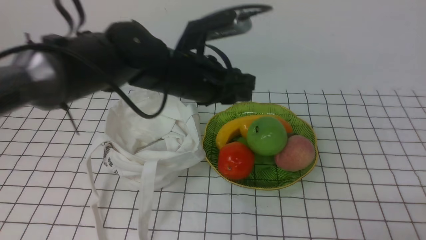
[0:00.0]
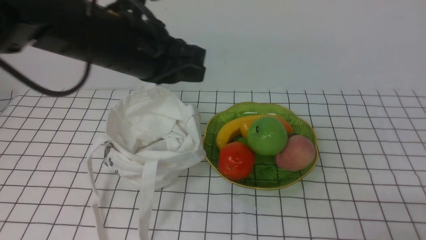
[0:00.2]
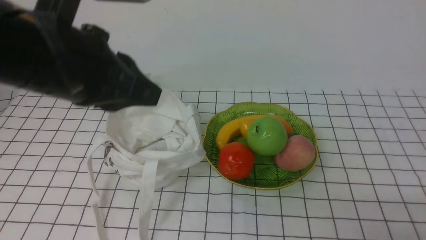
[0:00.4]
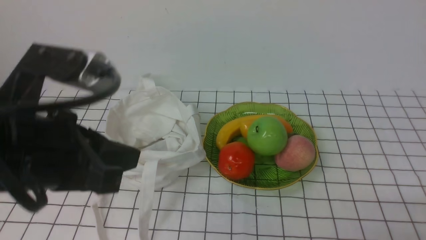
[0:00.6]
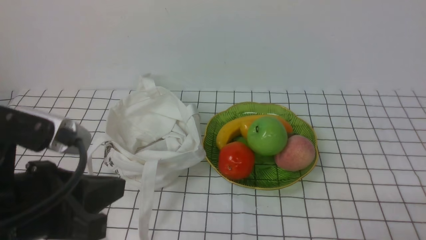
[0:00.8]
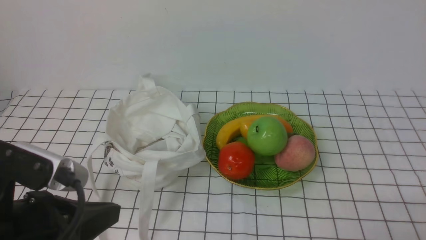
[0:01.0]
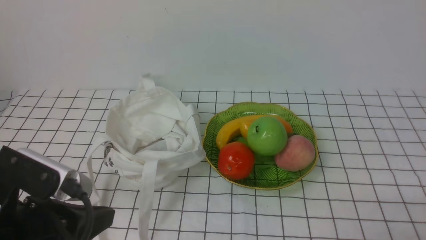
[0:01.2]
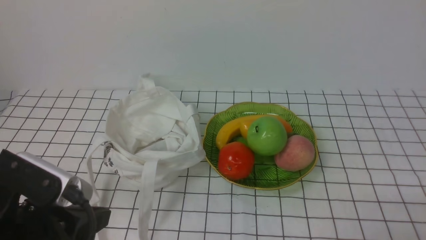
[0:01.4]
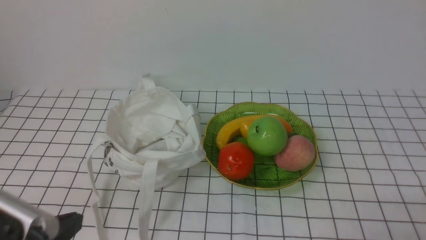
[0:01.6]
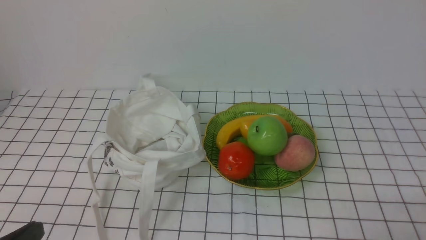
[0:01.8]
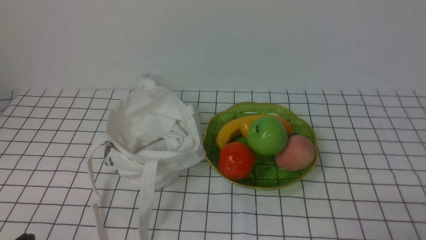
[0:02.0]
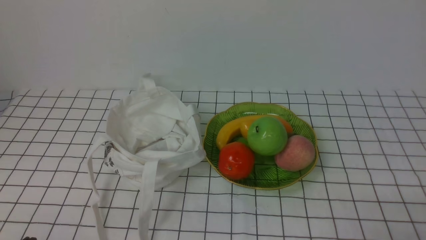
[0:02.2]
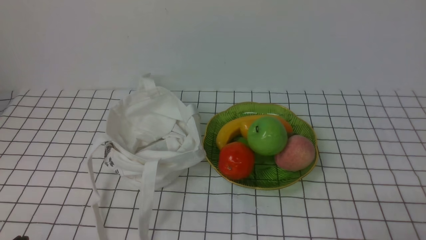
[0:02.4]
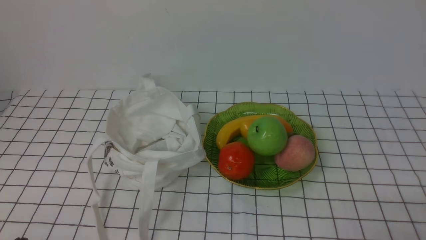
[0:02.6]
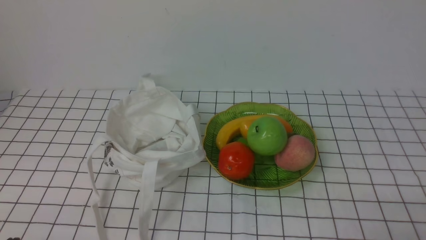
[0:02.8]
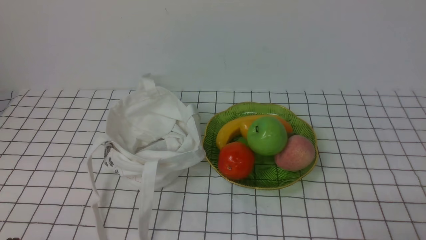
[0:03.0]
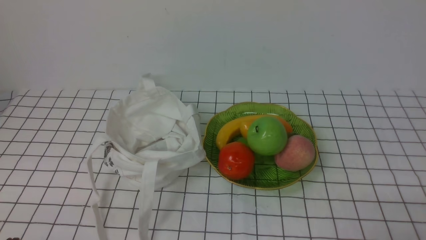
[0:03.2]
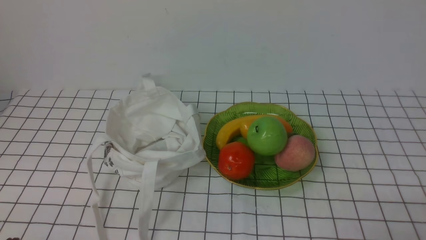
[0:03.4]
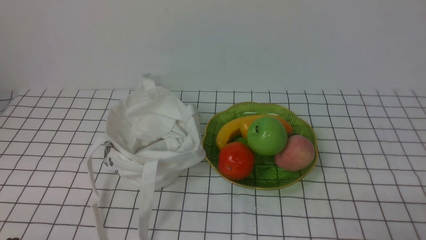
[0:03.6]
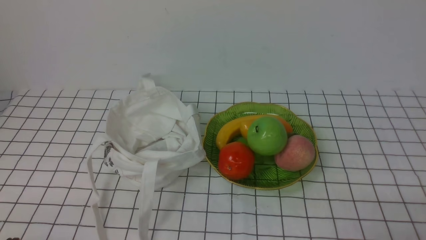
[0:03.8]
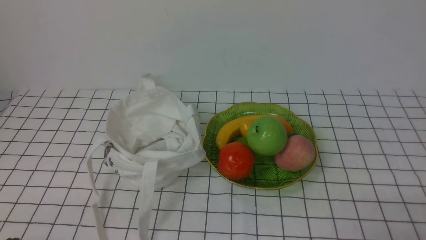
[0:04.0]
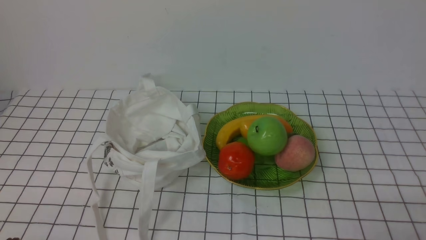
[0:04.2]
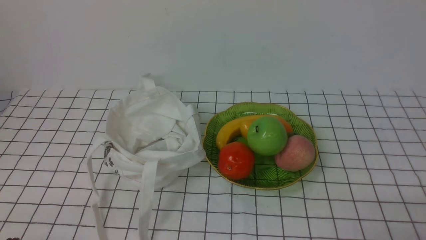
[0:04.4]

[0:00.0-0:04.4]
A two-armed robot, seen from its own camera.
0:00.0 to 0:01.4: The left gripper travels backward and to the left by approximately 25 cm, and closes.
0:01.4 to 0:03.0: The left gripper is displaced downward, to the left and backward by roughly 10 cm.
0:03.0 to 0:04.4: The two grippers keep their place.

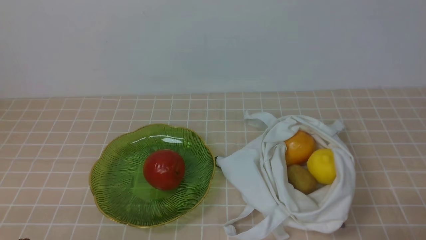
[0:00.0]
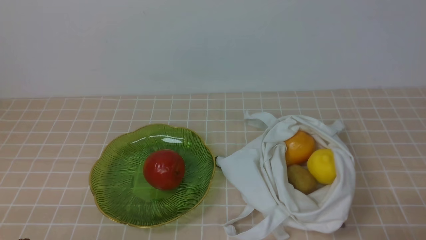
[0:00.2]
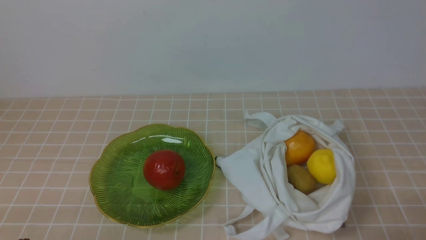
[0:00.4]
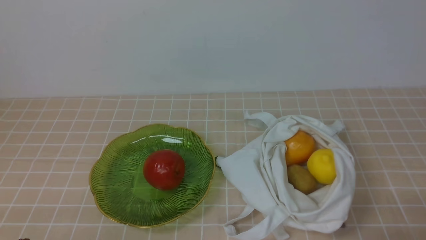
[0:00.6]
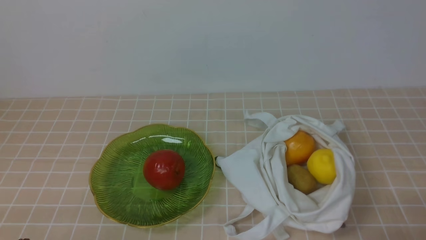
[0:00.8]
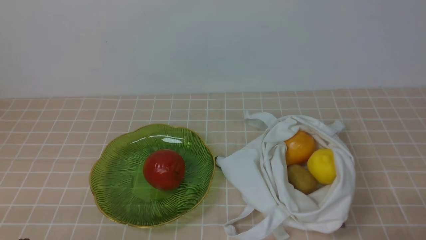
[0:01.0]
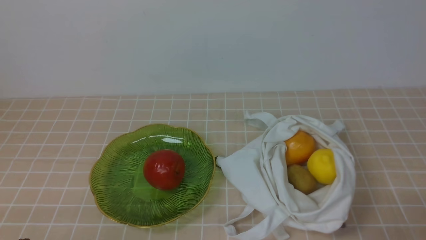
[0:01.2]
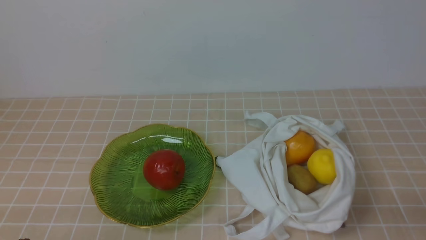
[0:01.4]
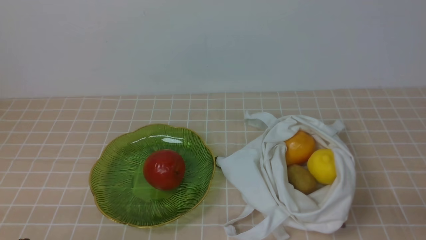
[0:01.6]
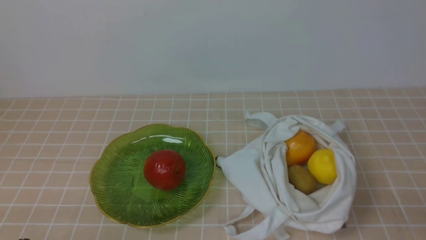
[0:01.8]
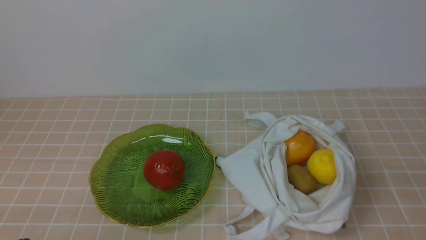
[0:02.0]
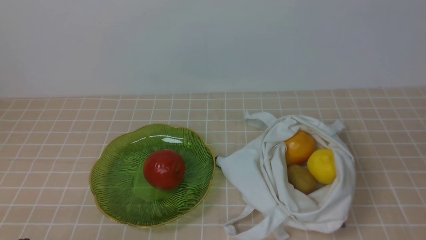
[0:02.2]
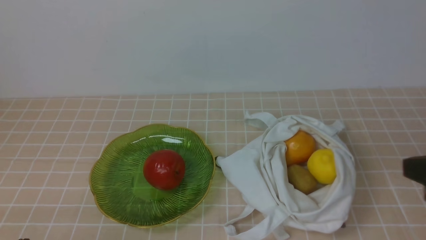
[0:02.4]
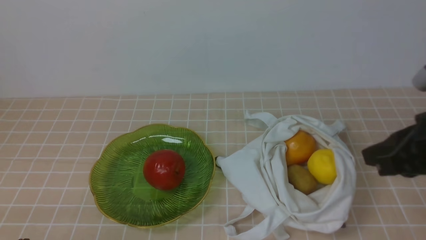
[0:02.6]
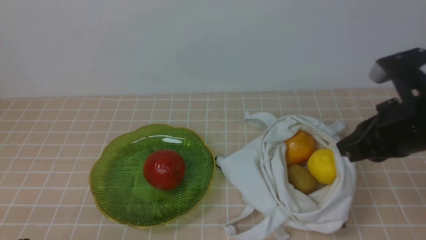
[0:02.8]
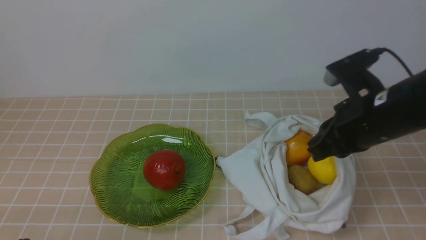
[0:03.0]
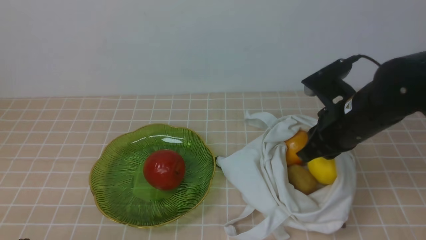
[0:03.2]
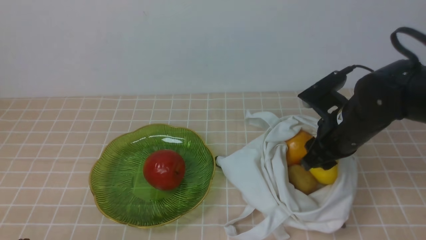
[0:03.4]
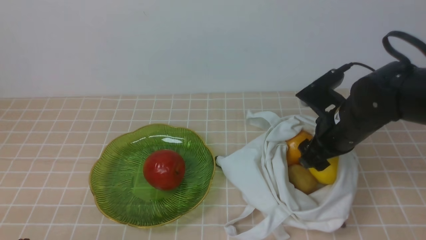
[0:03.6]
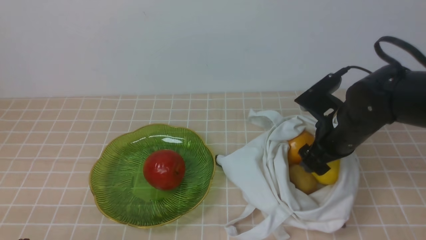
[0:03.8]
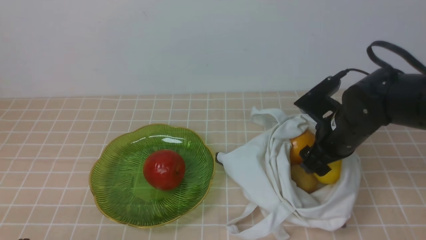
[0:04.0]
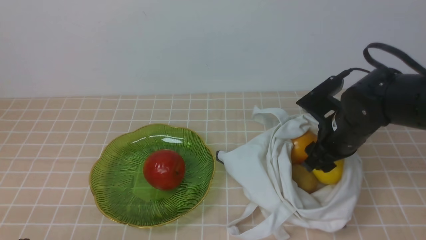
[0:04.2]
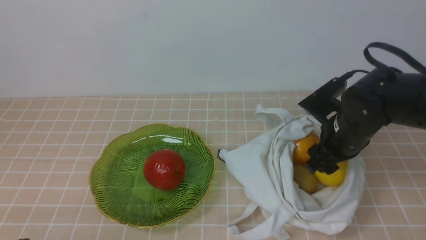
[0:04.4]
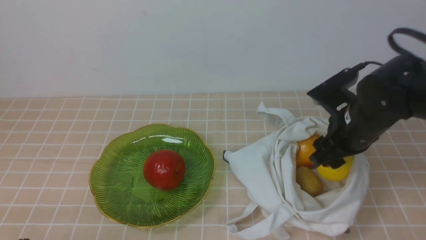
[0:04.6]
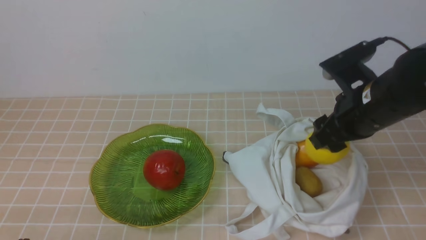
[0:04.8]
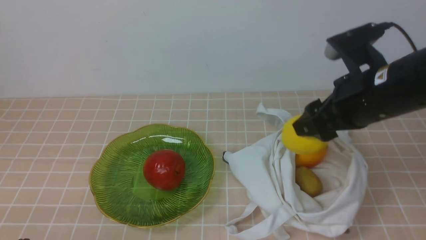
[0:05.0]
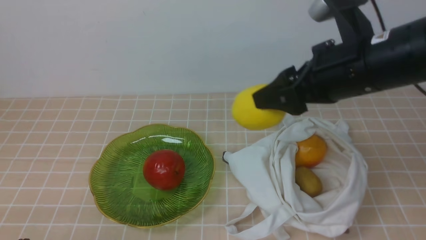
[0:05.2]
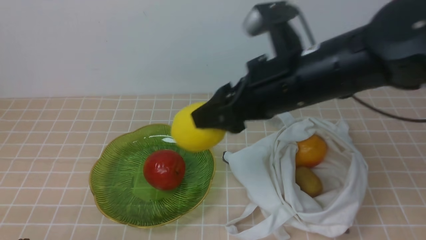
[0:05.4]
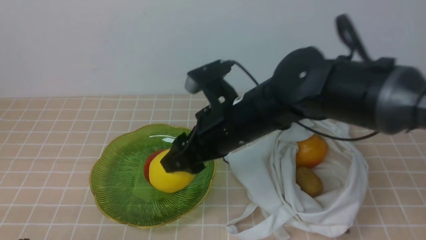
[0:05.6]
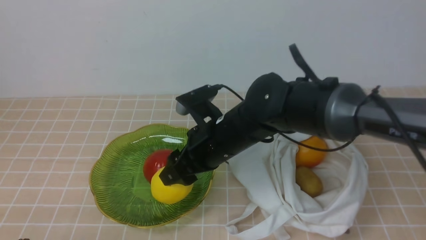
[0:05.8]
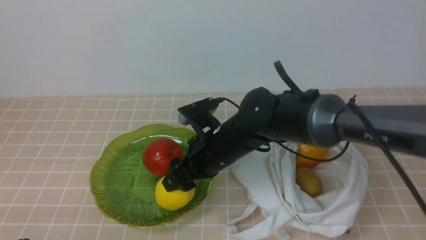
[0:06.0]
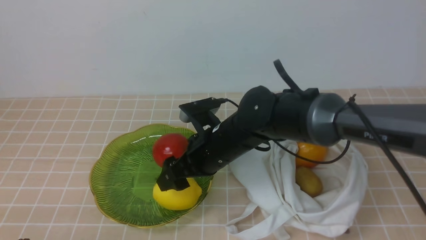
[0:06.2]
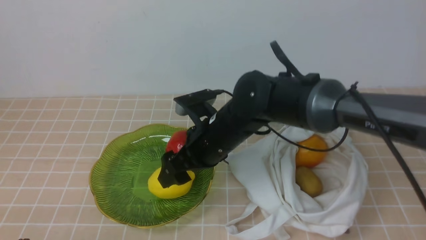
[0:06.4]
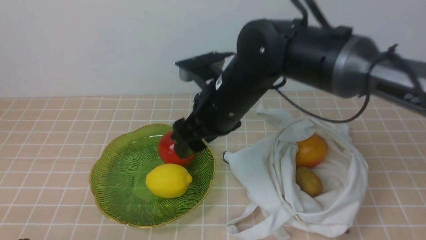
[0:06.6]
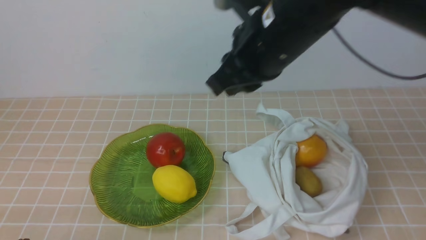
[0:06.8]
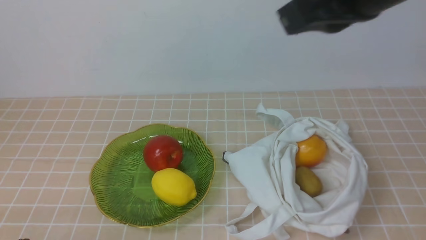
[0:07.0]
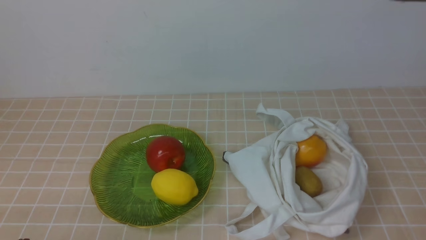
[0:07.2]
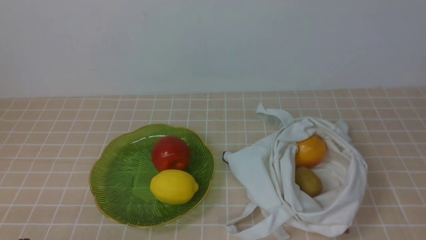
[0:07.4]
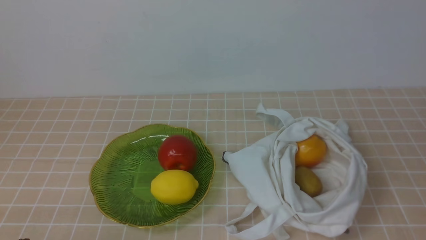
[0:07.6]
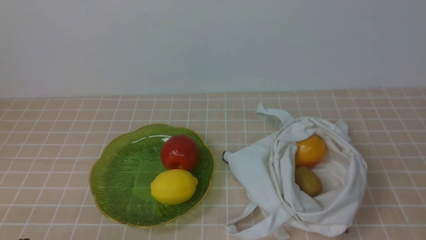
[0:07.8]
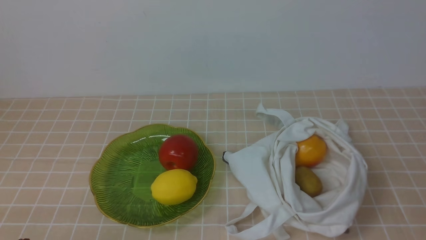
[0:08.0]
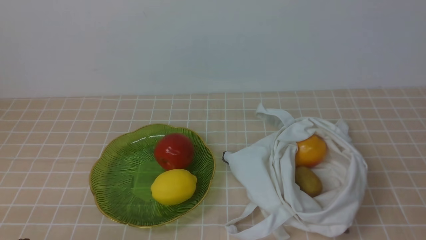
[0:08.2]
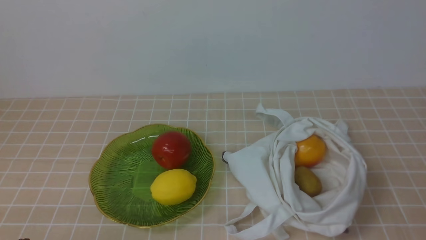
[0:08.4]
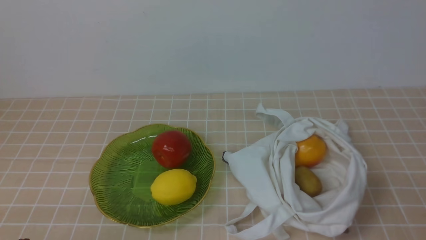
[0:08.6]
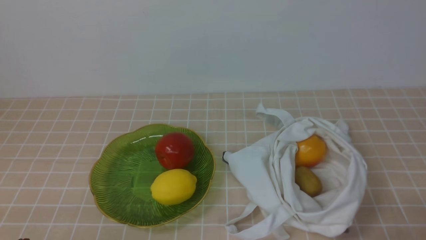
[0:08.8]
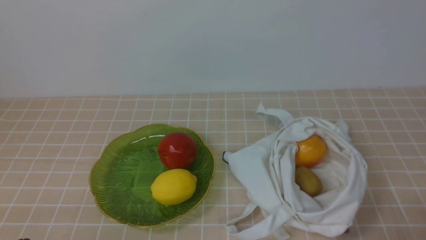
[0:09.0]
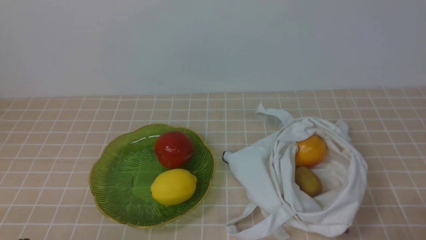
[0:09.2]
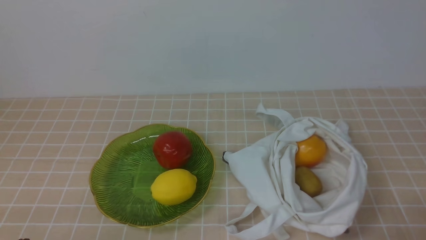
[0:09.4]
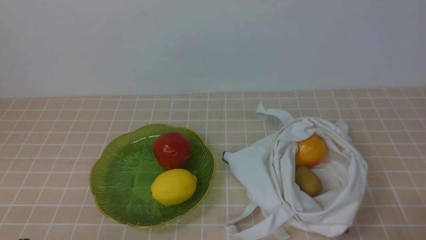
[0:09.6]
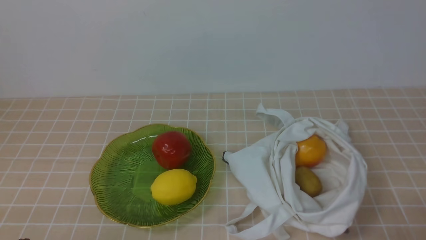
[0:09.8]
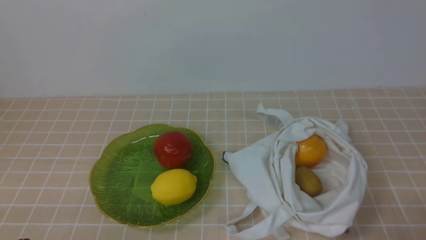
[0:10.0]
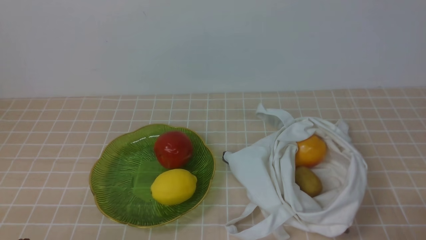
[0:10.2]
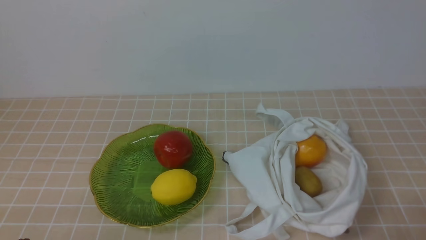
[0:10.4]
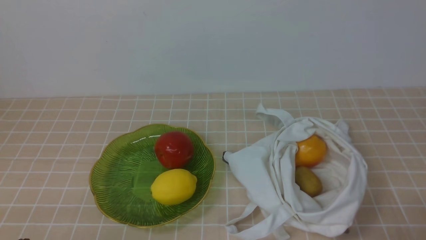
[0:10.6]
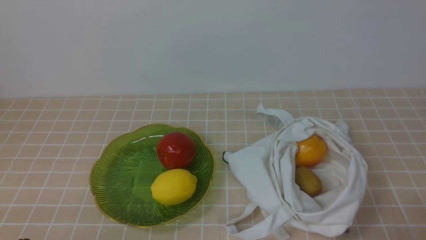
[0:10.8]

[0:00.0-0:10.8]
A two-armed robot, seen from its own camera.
Step, 0:00.0 to 0:04.4: use the right arm to grab a lemon from the bag.
Step, 0:04.6 to 0:06.2: use the right arm to put the lemon into the empty plate on the left.
0:01.6 to 0:03.0: The right gripper is displaced forward and to the left by some 25 cm.
0:03.0 to 0:04.6: The right gripper opens up.
0:04.6 to 0:06.2: The right gripper shifts about 20 cm to the left.
0:06.2 to 0:07.8: The right gripper is displaced to the right, backward and upward by approximately 40 cm, and closes.
0:09.2 to 0:10.8: The two grippers keep their place.
